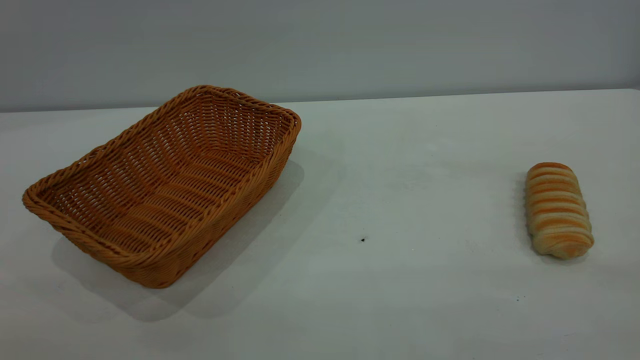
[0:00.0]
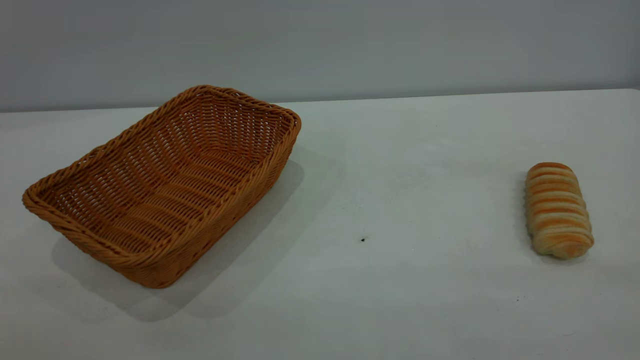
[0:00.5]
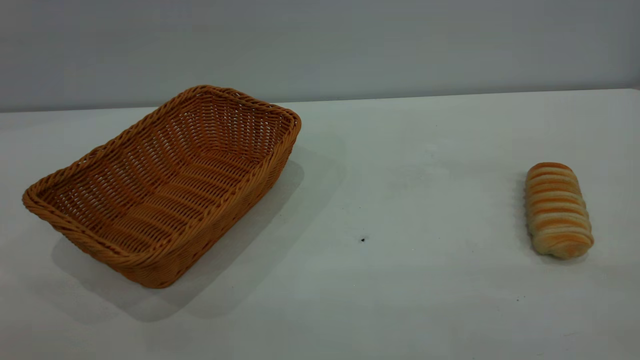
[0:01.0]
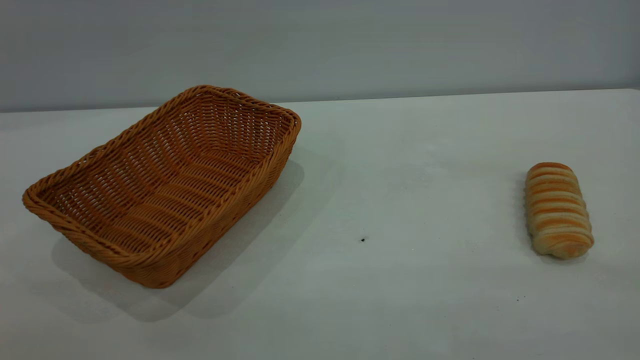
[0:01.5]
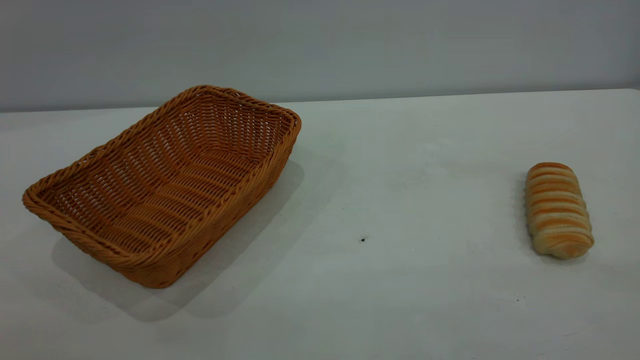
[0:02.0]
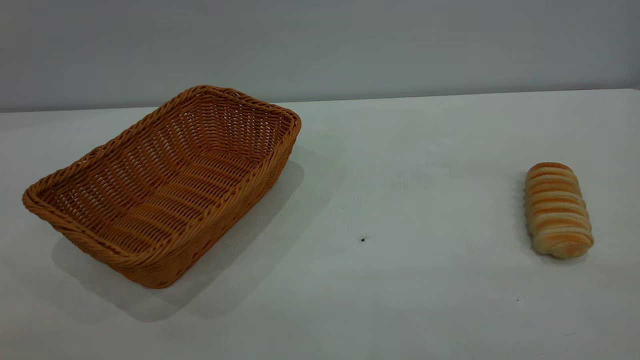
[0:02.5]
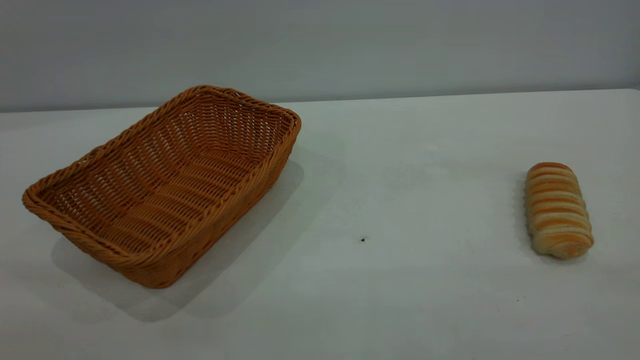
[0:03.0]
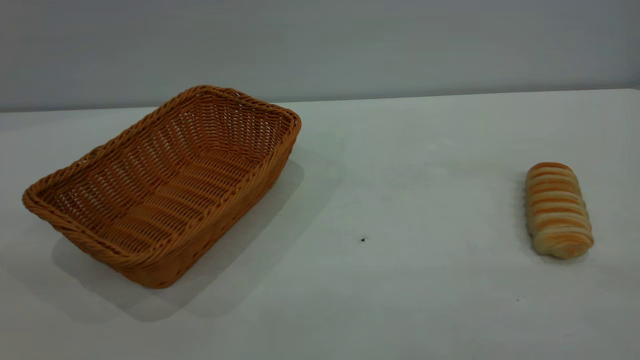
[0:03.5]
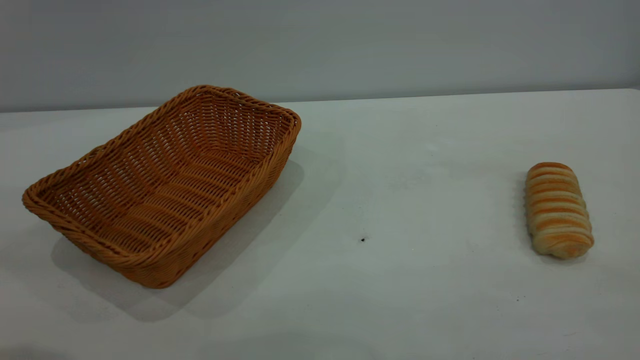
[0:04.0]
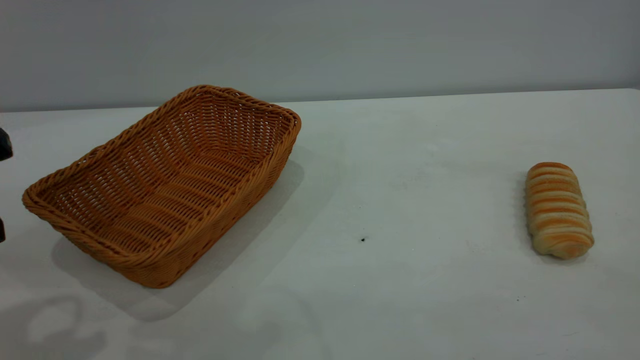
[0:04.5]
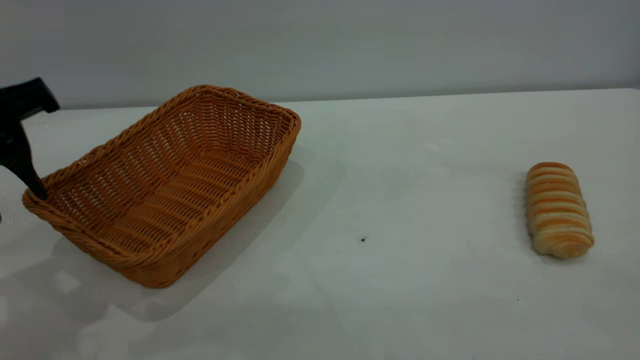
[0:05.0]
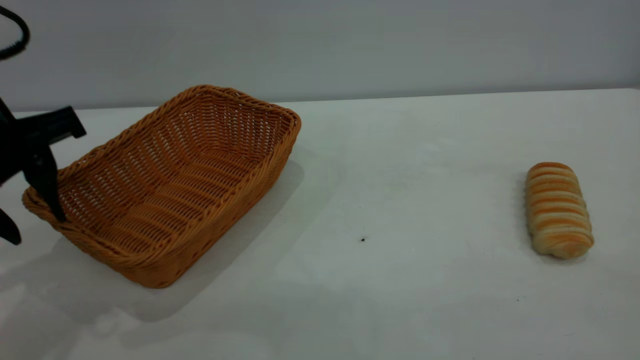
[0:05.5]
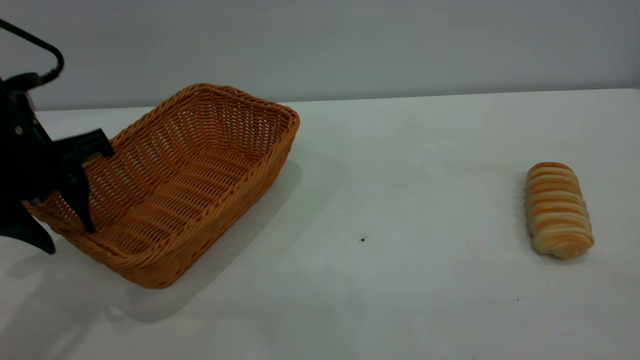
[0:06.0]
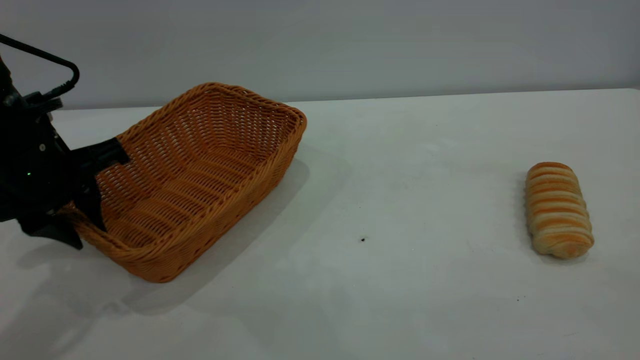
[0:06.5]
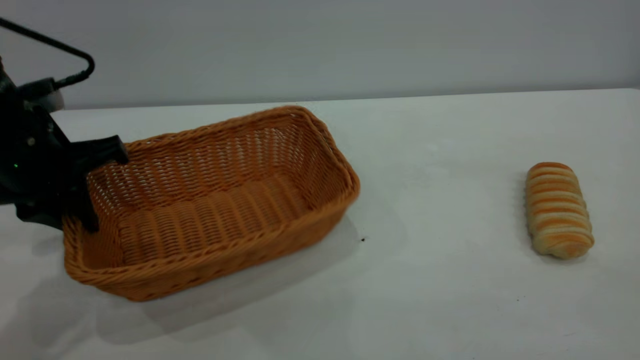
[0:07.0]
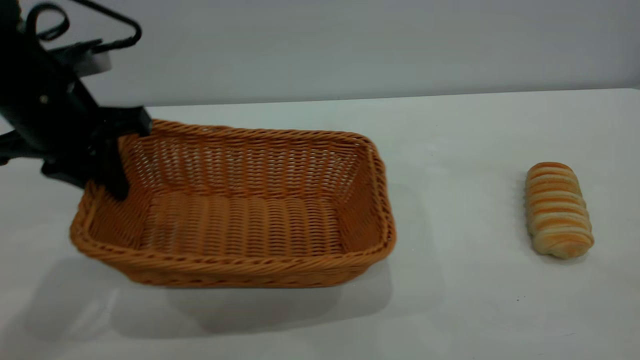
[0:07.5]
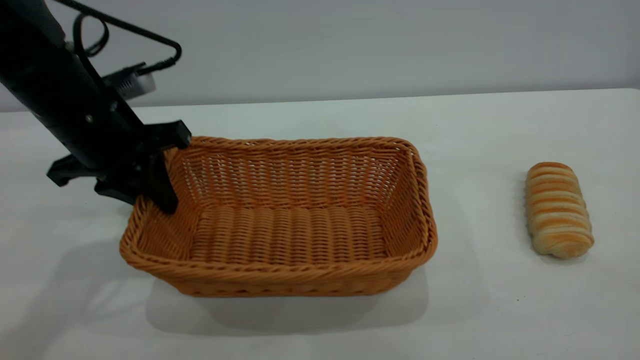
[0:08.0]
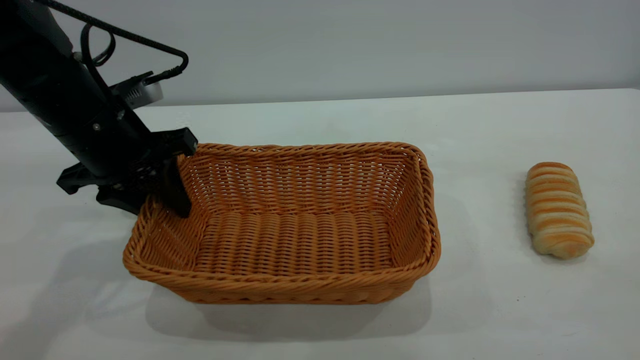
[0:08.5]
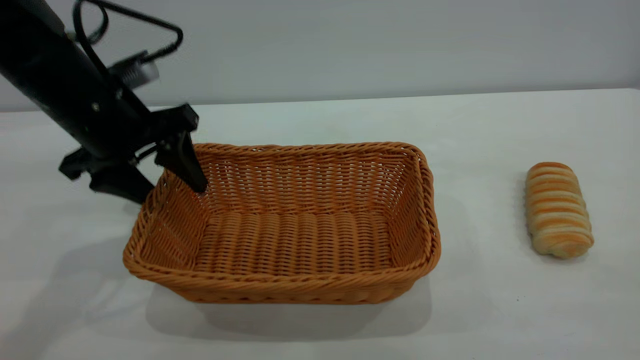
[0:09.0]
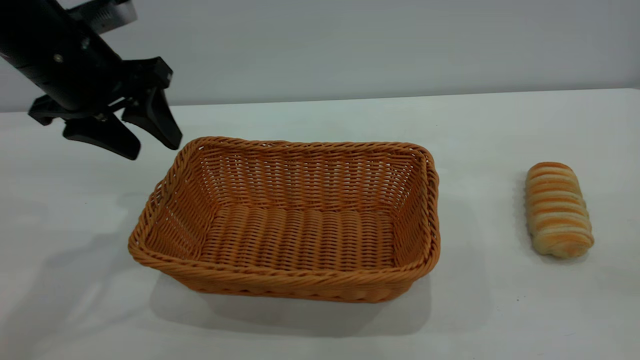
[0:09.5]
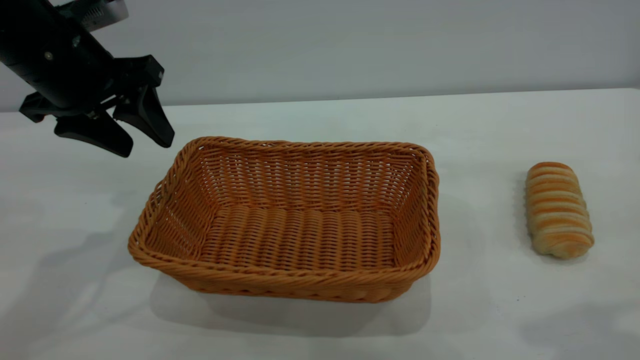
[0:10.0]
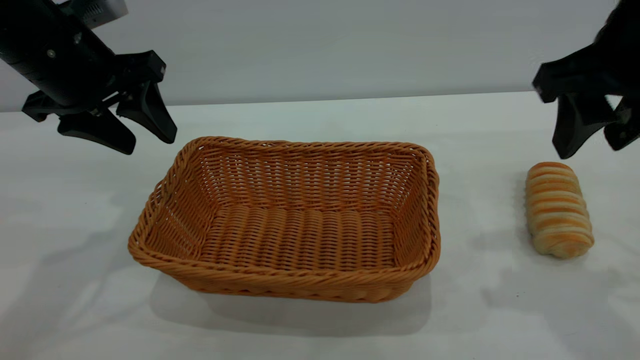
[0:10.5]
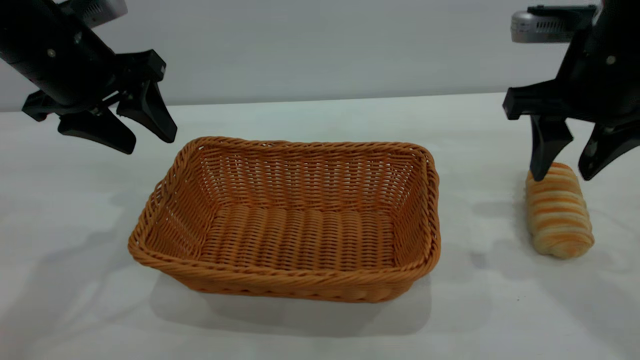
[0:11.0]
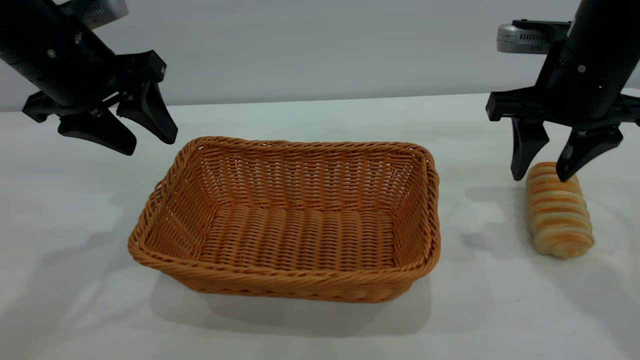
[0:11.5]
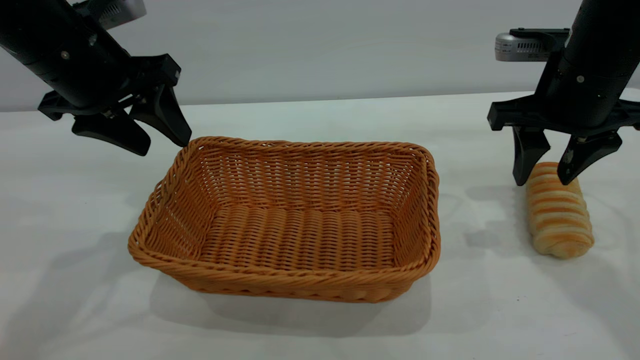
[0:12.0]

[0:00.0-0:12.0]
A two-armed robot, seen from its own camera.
Task of the whole recording: One hand grasps the yellow basket and places it in the middle of the table, while the other hand picks up the long bread and puts it into the yellow basket.
Step, 0:00.0 to 0:10.0: Move the basket to the center of view.
0:04.0 to 0:06.0: The left gripper travels forward and downward by some 20 cm.
0:06.0 to 0:08.0: The left gripper travels forward by about 5 cm, and closes its fingers.
0:08.0 to 0:10.0: The right gripper heads forward, covering approximately 20 cm. Meanwhile the left gripper goes approximately 5 cm upward, and opens.
0:10.0 to 0:12.0: The right gripper goes some 20 cm forward and downward.

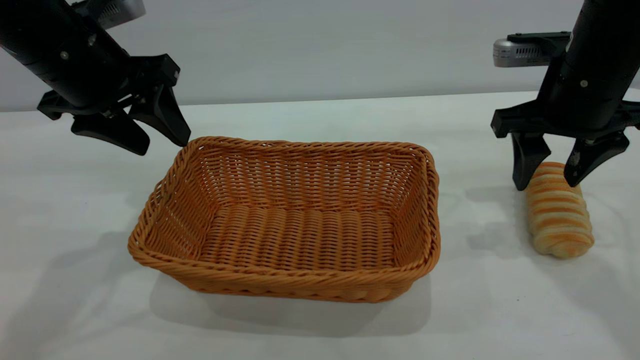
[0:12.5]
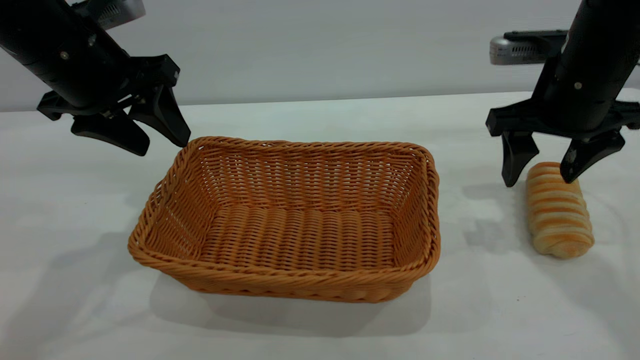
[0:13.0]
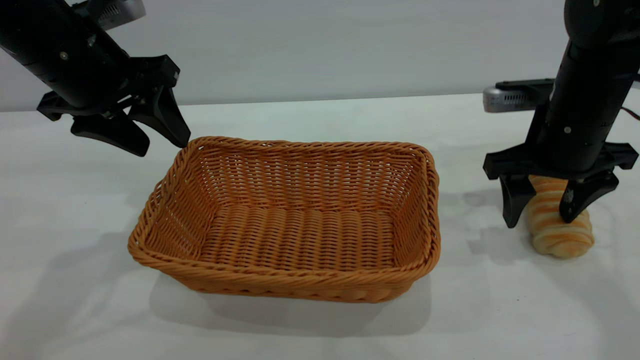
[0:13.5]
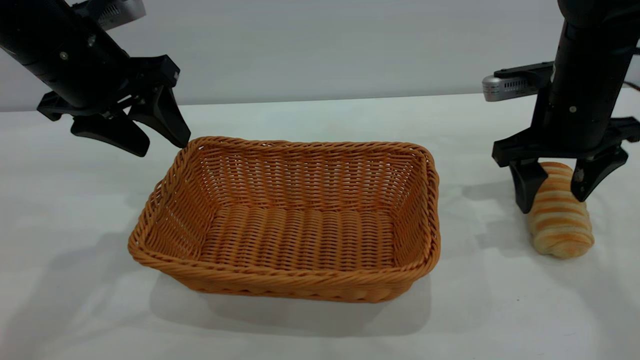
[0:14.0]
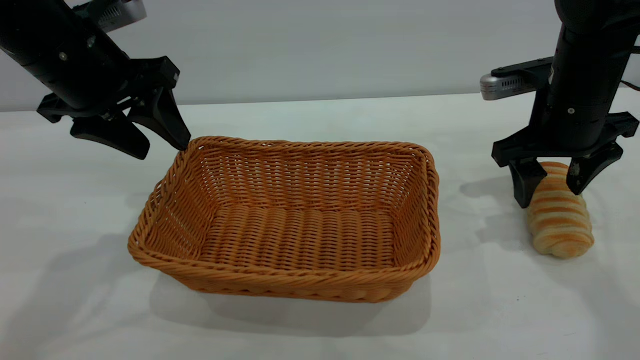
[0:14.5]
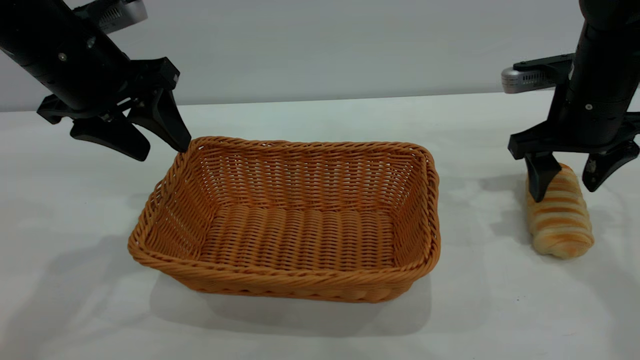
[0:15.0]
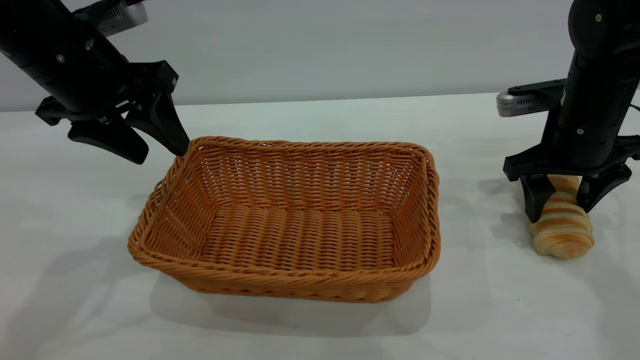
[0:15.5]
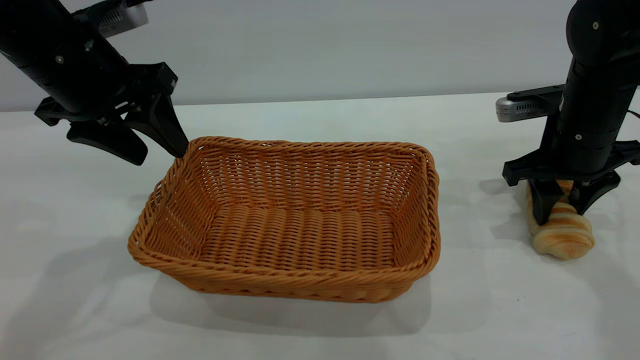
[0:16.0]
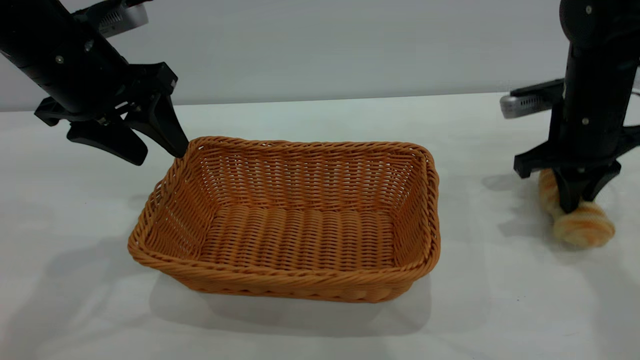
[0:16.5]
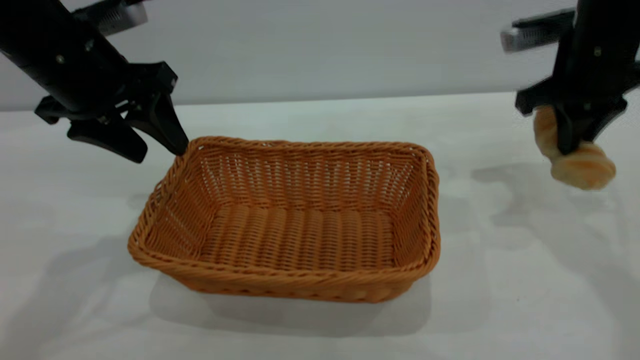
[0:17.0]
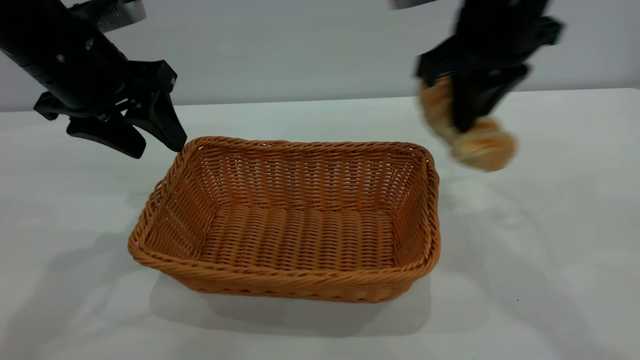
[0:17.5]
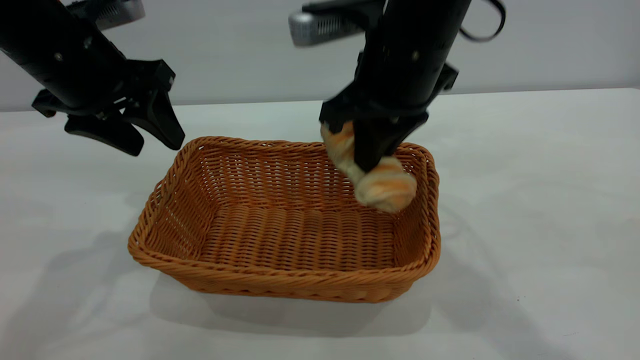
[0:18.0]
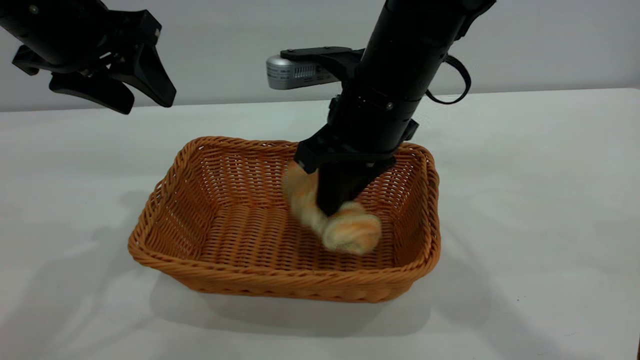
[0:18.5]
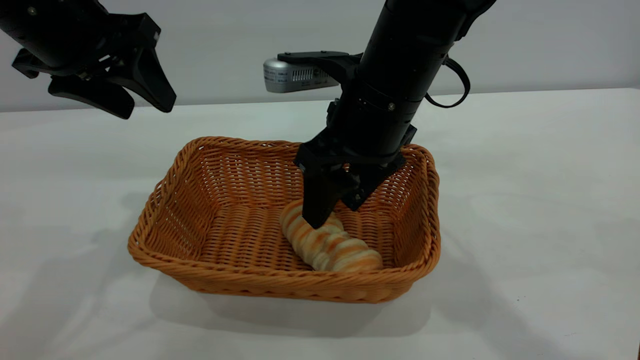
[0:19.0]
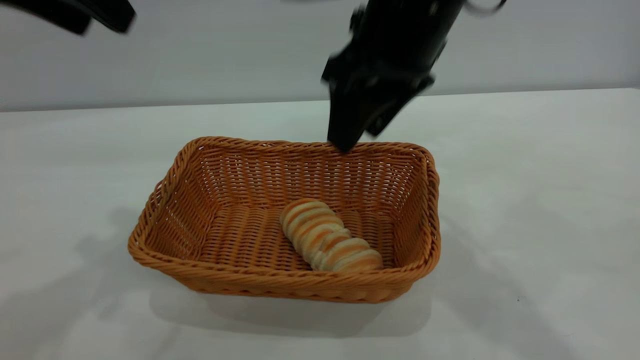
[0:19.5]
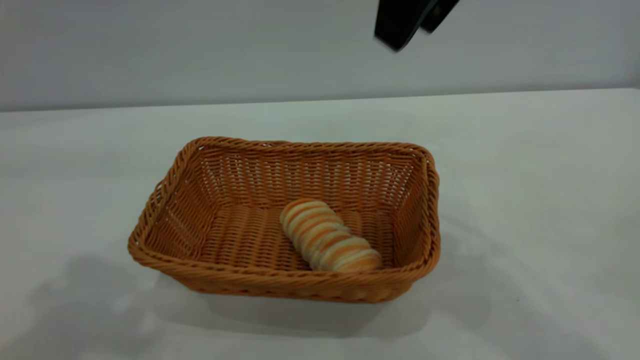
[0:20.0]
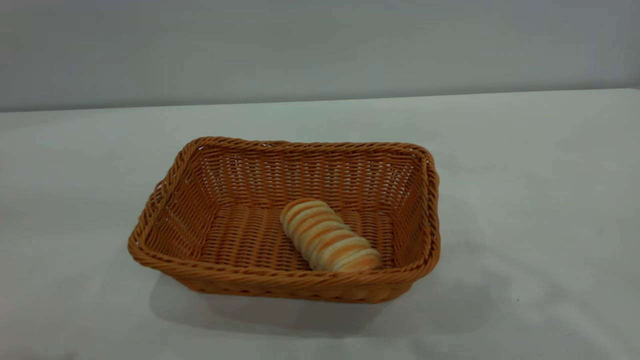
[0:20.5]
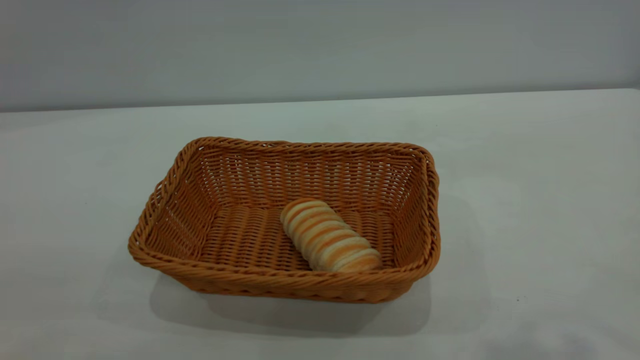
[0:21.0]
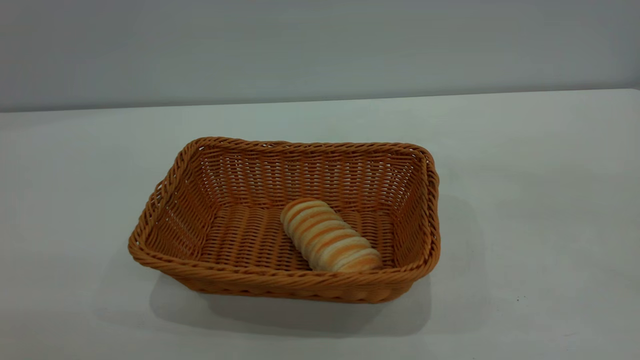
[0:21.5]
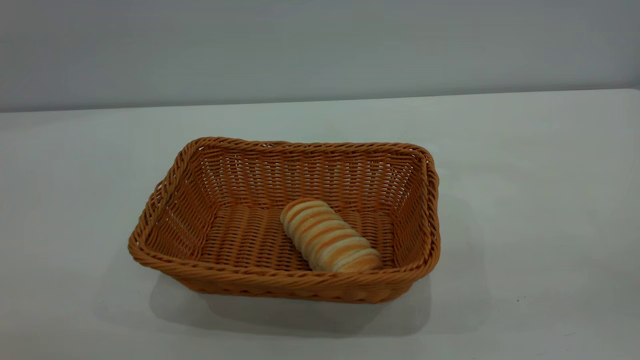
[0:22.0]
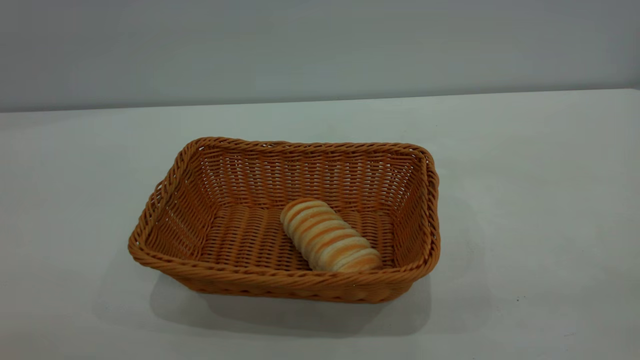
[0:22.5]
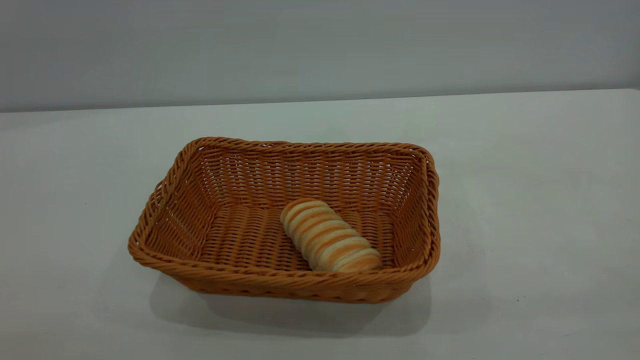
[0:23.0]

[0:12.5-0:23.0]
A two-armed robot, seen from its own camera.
Task of the whole recording: One hand grasps the yellow basket and places it in the middle of the table, while the other hand picks up the long bread and puts it into the yellow basket.
Step, 0:17.0 to 0:19.5: place the bread into the basket.
0:12.5 to 0:14.5: The grippers make only small movements.
0:14.5 to 0:16.5: The right gripper closes its fingers.
0:16.5 to 0:19.0: The right gripper goes approximately 20 cm to the left, and opens up.
0:19.0 to 0:21.0: The right gripper goes some 40 cm upward, backward and to the right; the left gripper heads backward, covering about 30 cm.
